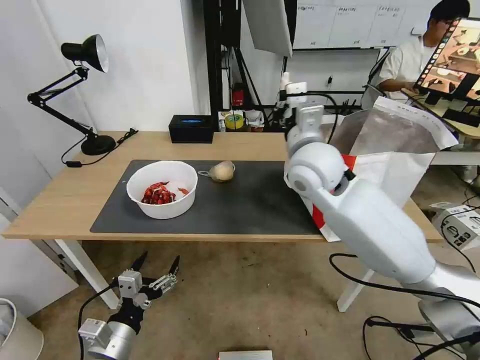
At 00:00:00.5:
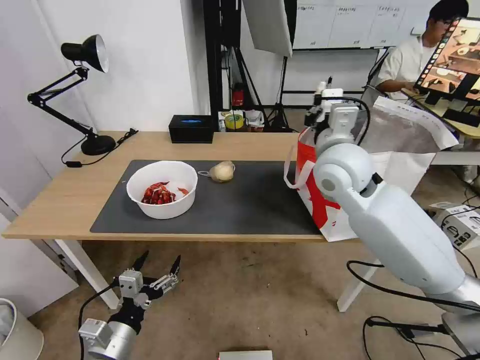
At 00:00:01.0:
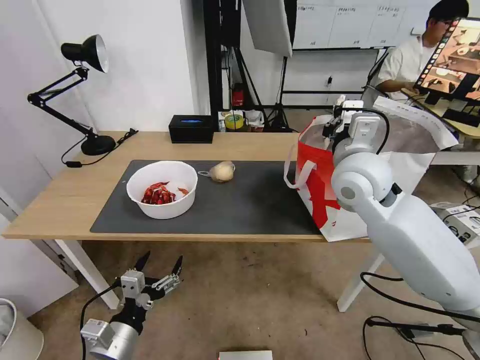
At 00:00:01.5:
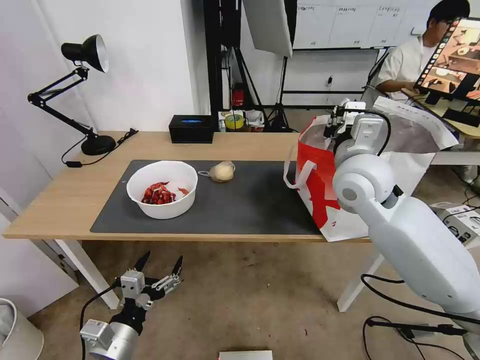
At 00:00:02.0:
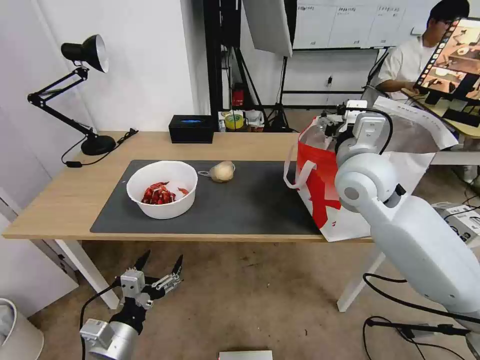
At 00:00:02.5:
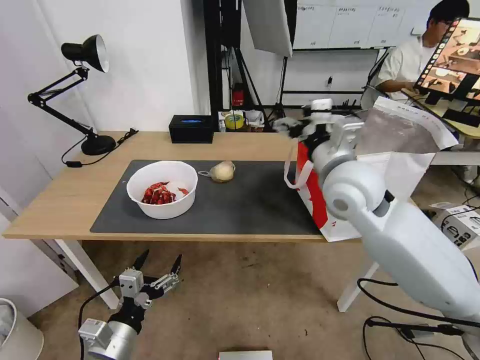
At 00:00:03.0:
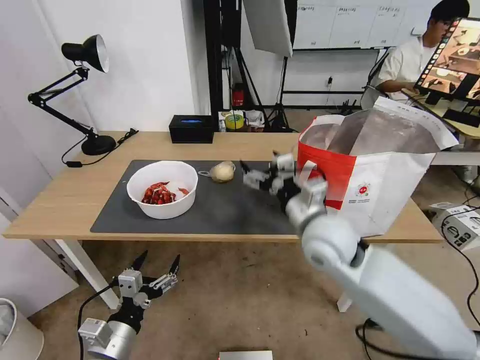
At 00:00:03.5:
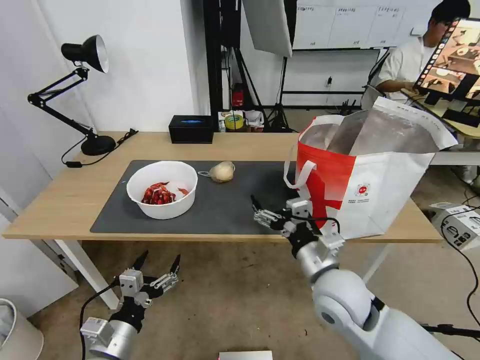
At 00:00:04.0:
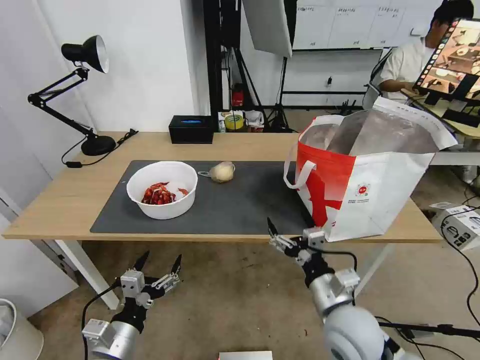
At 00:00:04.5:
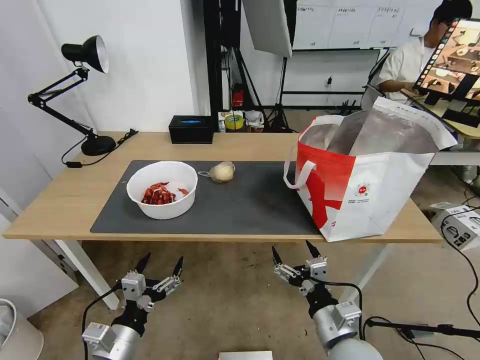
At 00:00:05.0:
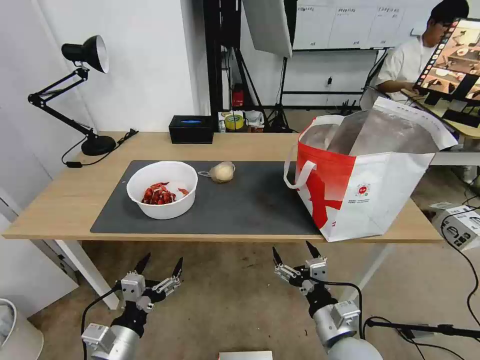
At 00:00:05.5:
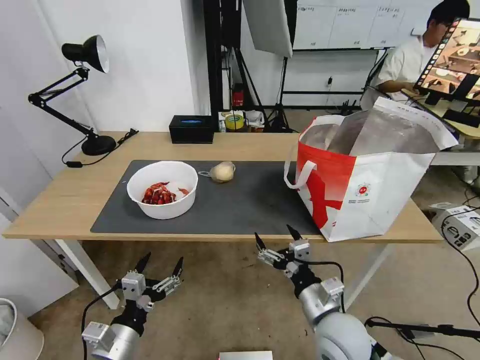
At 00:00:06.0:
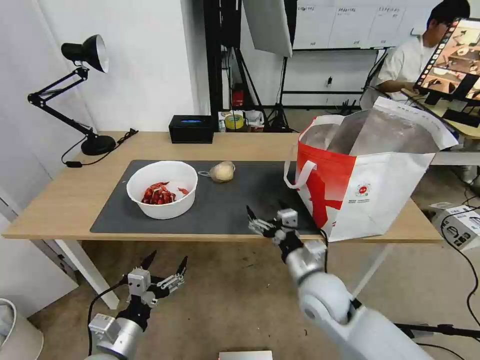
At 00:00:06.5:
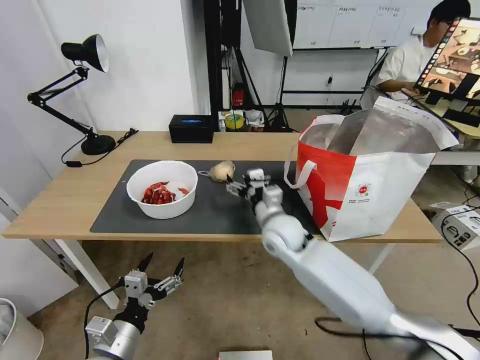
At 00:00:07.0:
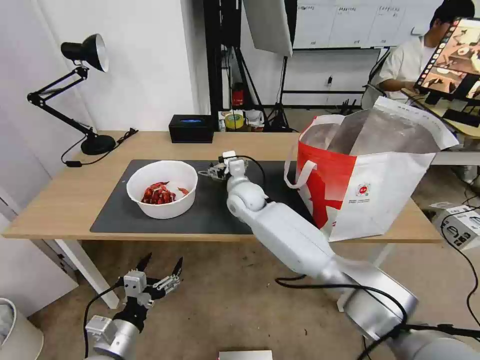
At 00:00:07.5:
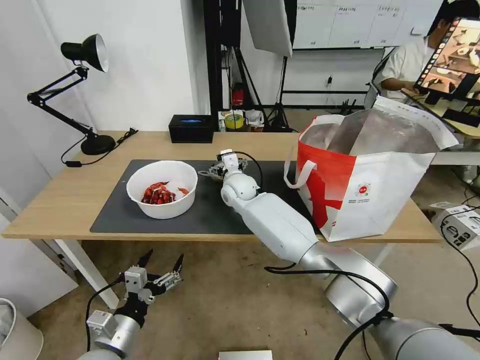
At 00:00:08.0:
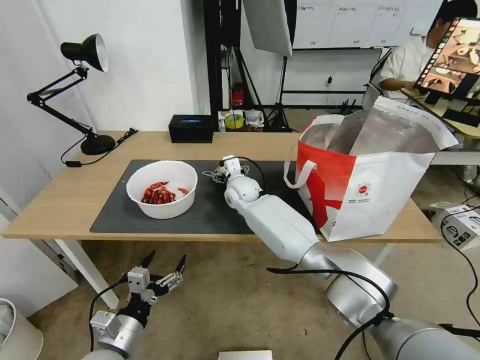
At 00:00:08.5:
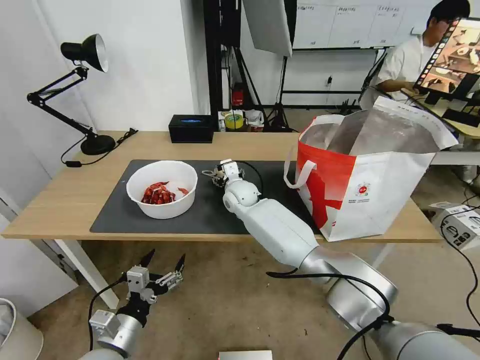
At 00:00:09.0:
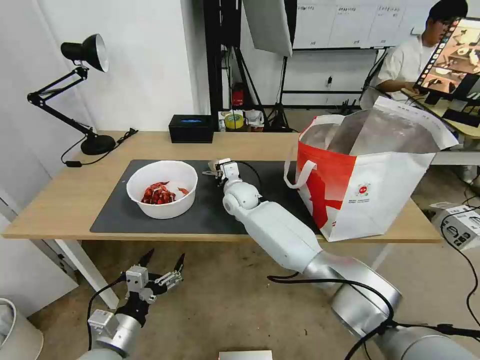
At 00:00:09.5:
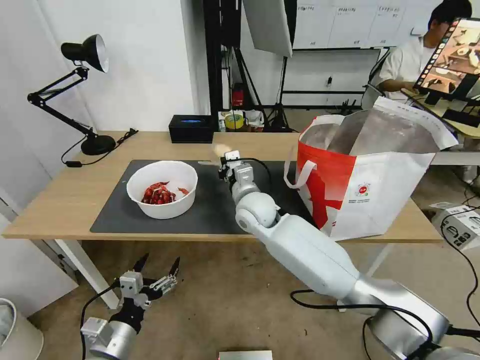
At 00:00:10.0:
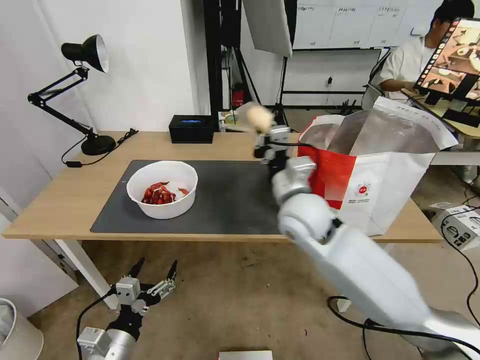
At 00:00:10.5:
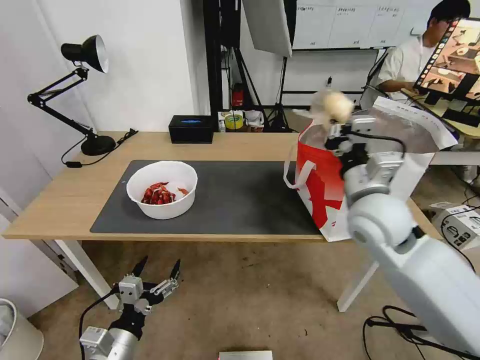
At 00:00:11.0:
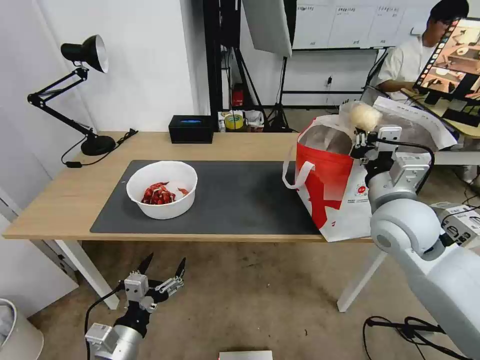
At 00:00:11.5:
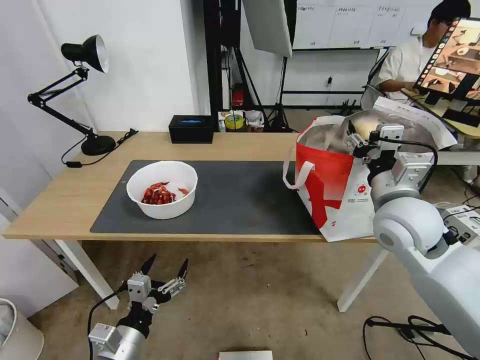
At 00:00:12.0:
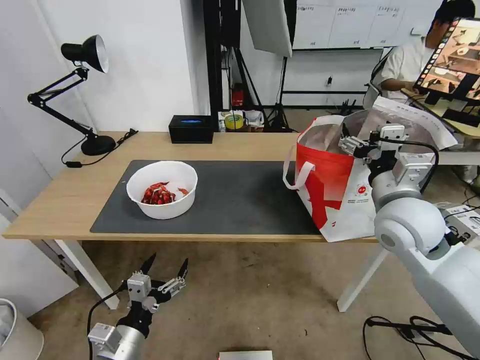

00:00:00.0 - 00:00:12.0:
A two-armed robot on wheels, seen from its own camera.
Task of the whole recording: Pick up the trash from the table and place it into the takeout bag.
00:00:00.0 - 00:00:02.0: The right gripper shifts approximately 10 cm to the right, and opens up.
00:00:02.0 - 00:00:04.0: The right gripper goes about 30 cm downward and backward.
00:00:04.0 - 00:00:06.0: The right gripper travels forward by roughly 5 cm.
00:00:06.0 - 00:00:08.0: The right gripper shifts approximately 30 cm forward and to the left.
00:00:08.0 - 00:00:10.0: The right gripper goes some 25 cm backward, to the right and upward, and closes its fingers.
00:00:10.0 - 00:00:12.0: The right gripper shifts approximately 15 cm to the right, and opens.

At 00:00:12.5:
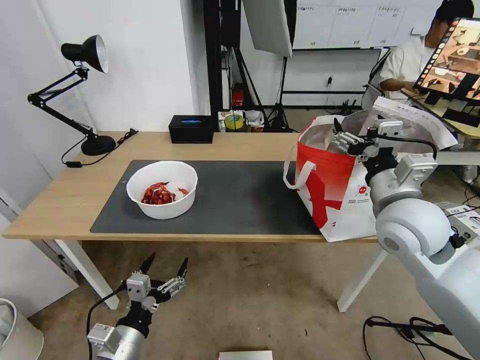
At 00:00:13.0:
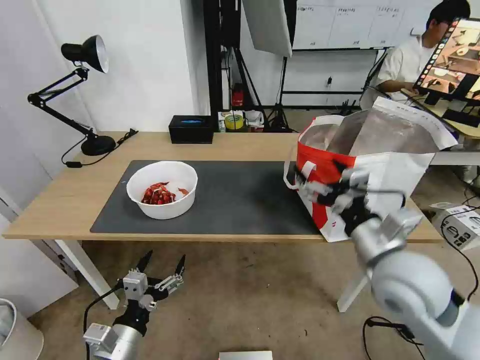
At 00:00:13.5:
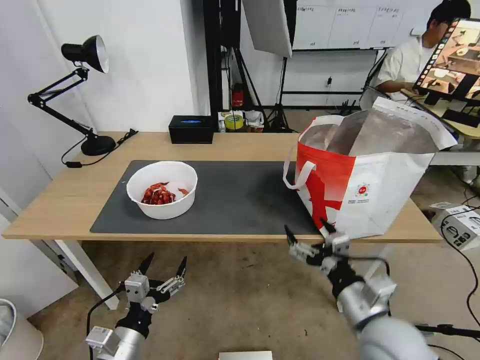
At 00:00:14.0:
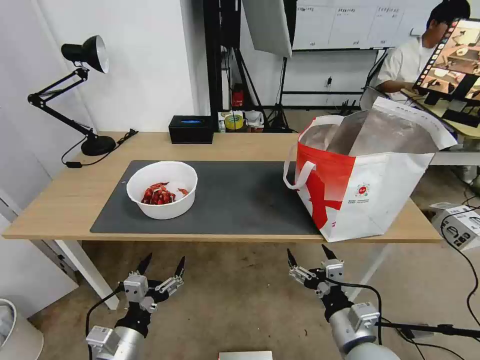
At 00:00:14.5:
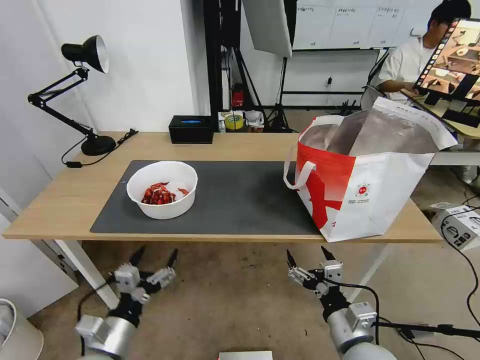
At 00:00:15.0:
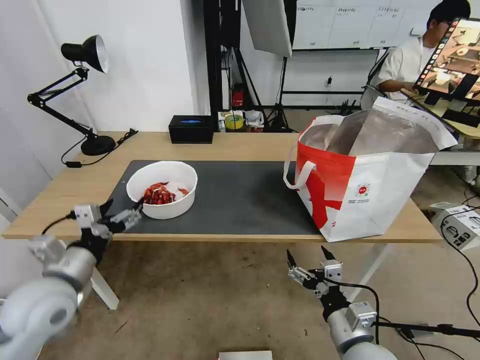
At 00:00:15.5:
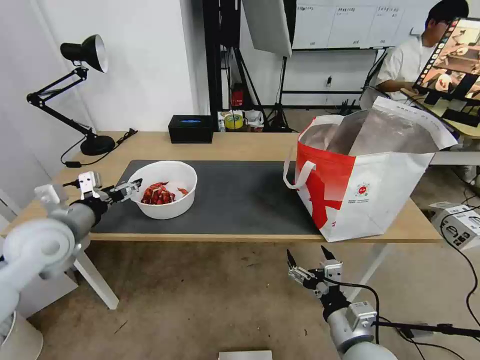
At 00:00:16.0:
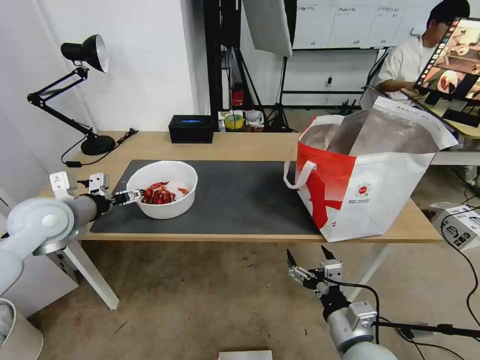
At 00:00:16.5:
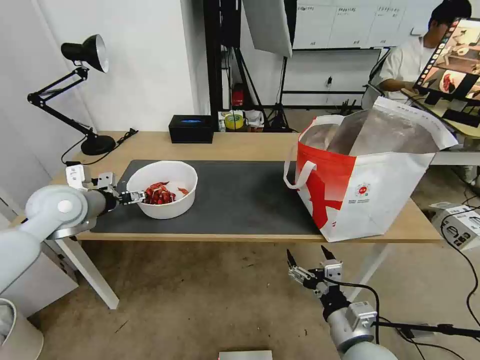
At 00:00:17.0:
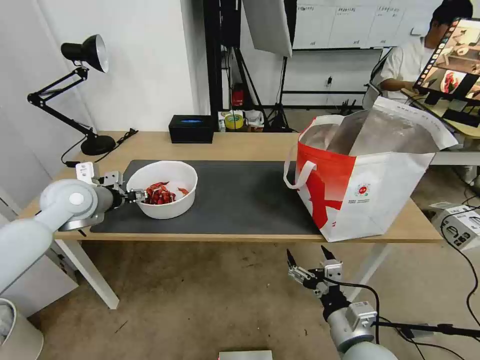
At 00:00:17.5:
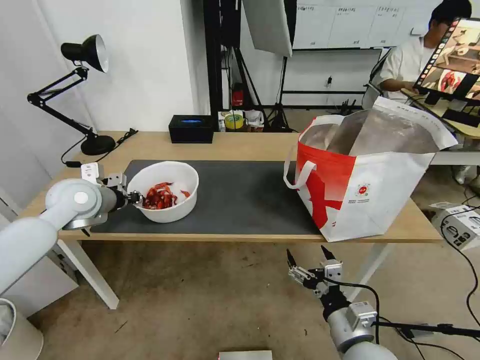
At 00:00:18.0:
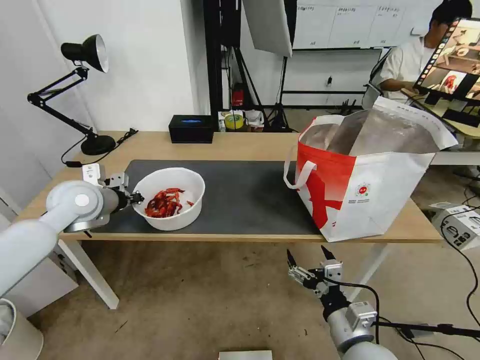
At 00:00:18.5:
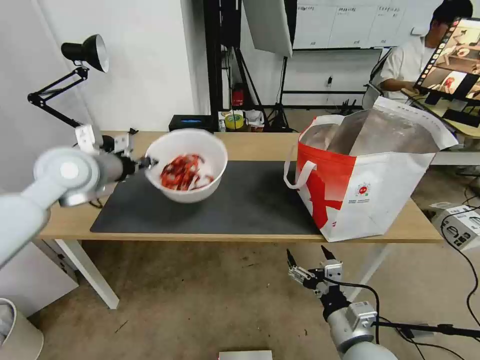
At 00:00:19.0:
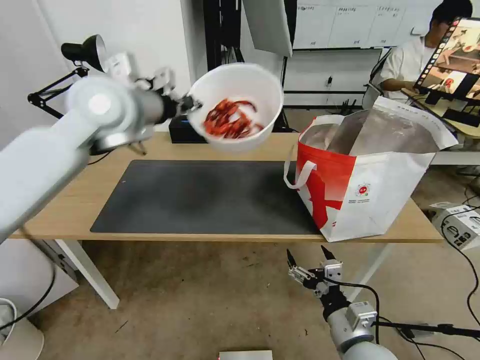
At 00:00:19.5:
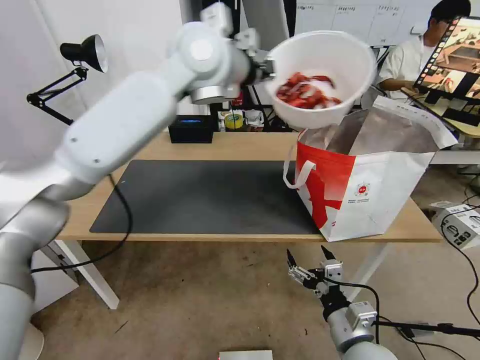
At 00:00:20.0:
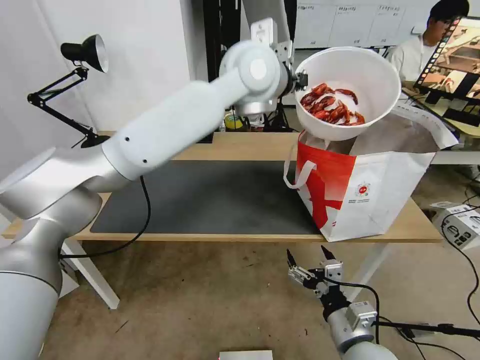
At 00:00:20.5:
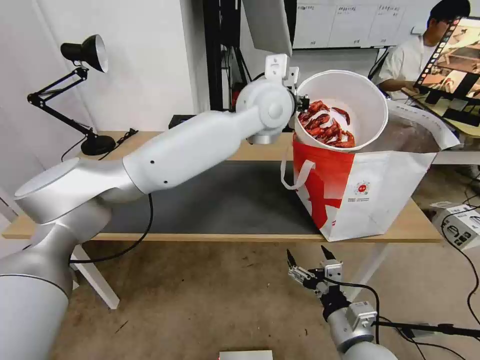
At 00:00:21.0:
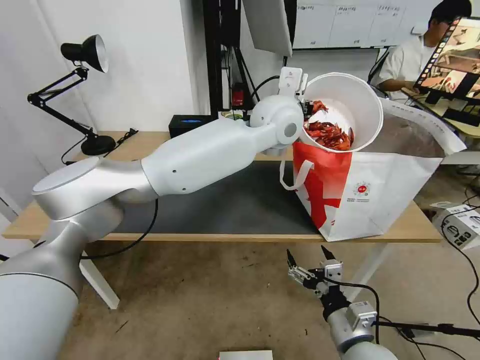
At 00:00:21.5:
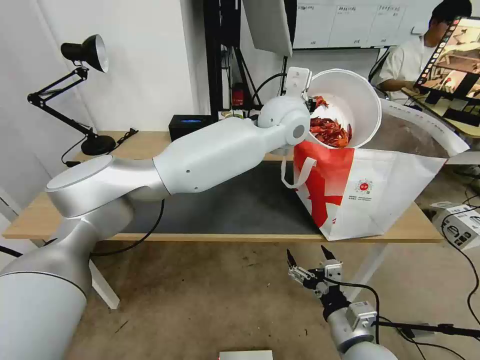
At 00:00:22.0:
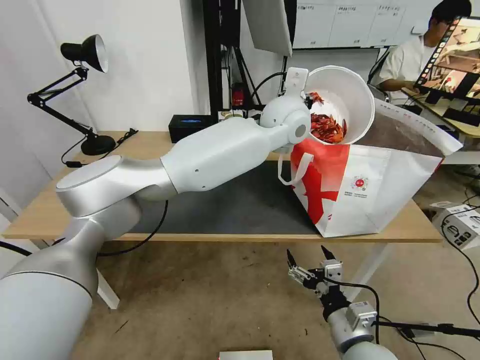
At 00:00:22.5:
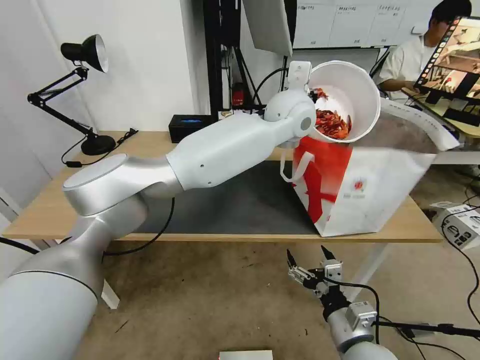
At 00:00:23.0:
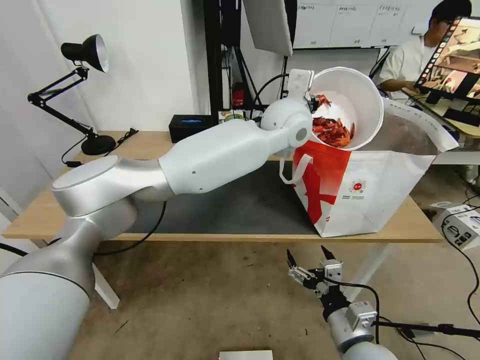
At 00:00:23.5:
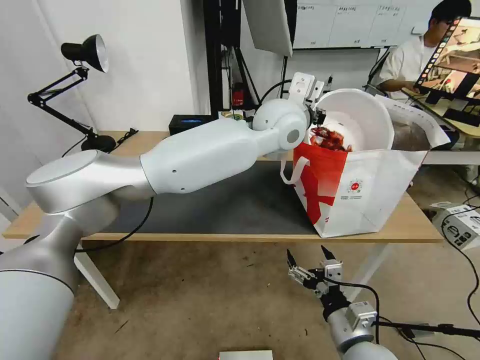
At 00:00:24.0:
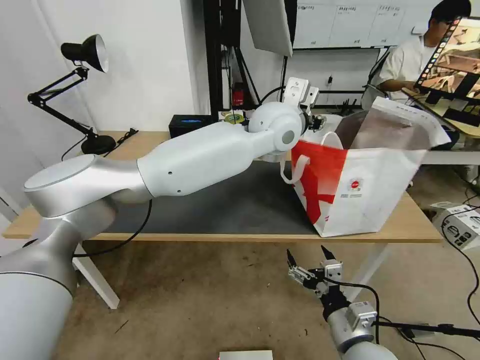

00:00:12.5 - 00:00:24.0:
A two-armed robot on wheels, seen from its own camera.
Task of the whole recording: Pick up the trash from the table and place it into the takeout bag.
00:00:12.5 - 00:00:14.5: The right gripper travels downward and backward by about 25 cm.
00:00:14.5 - 00:00:16.5: The left gripper shifts some 30 cm forward and upward.
00:00:16.5 - 00:00:18.5: The left gripper is displaced upward and to the right by approximately 10 cm, and closes its fingers.
00:00:18.5 - 00:00:20.0: The left gripper shifts roughly 35 cm to the right and upward.
00:00:20.0 - 00:00:22.0: The left gripper goes roughly 10 cm downward and to the right.
00:00:22.0 - 00:00:24.0: The left gripper opens.

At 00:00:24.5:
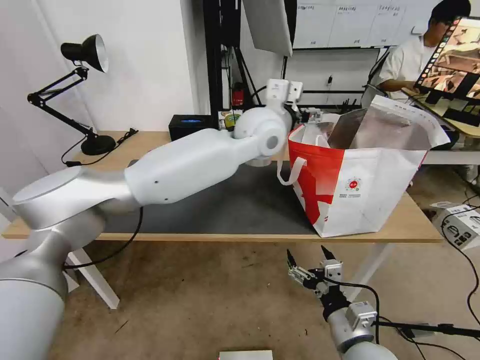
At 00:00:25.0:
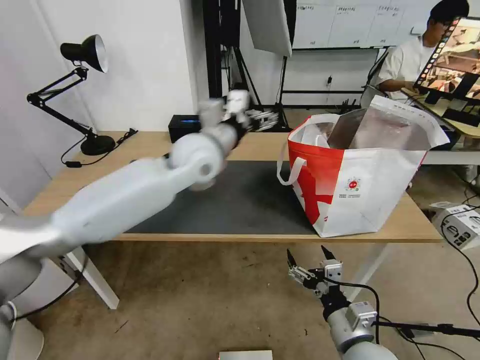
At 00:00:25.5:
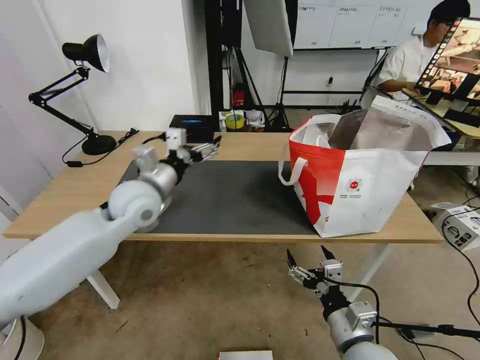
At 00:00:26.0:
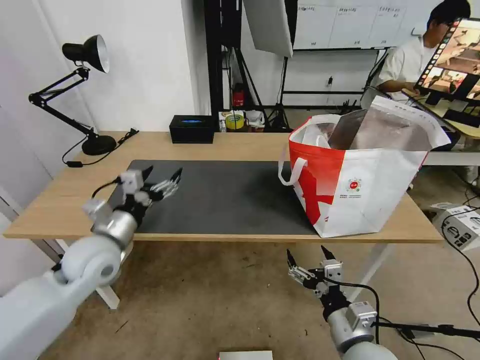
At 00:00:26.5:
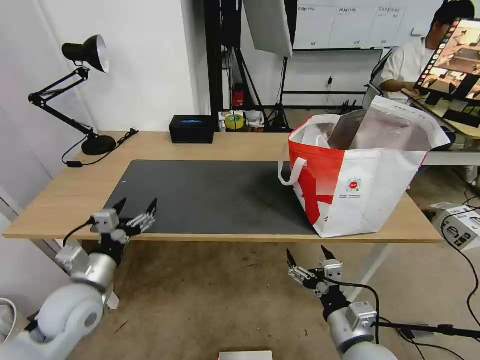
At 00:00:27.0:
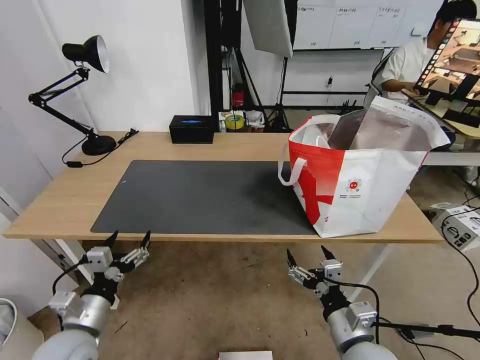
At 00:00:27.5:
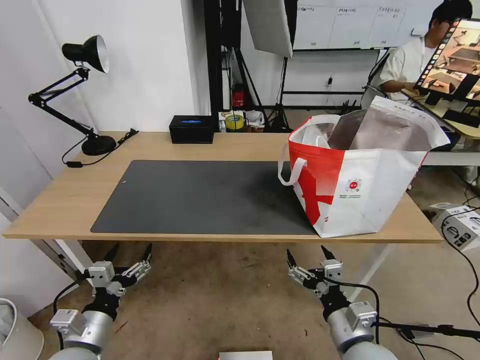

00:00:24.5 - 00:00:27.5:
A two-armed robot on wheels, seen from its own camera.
Task of the whole recording: Pick up the trash from the table and place it into the takeout bag.
00:00:24.5 - 00:00:26.0: The left gripper heads to the left, downward and backward, covering approximately 40 cm.
00:00:26.0 - 00:00:27.5: The left gripper shifts about 20 cm backward and downward.
